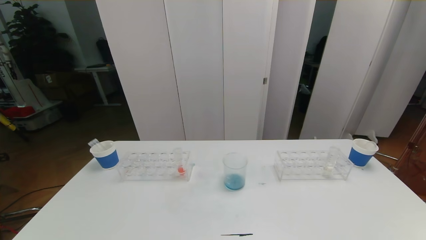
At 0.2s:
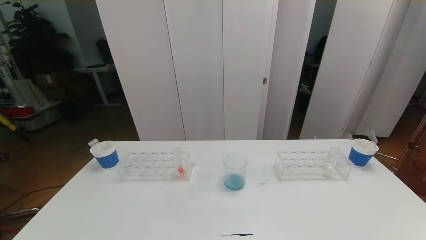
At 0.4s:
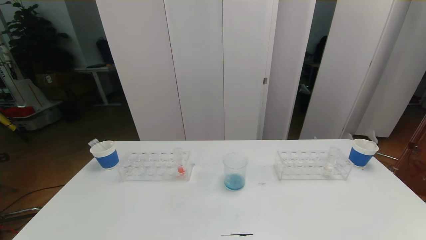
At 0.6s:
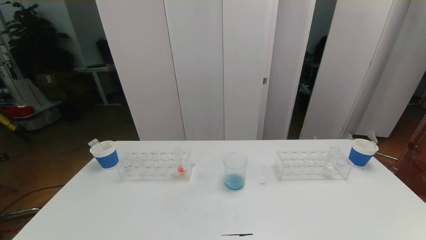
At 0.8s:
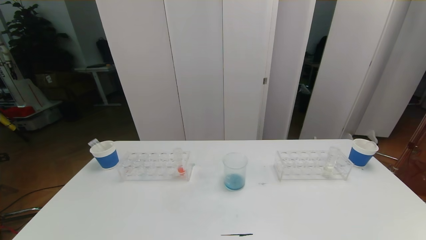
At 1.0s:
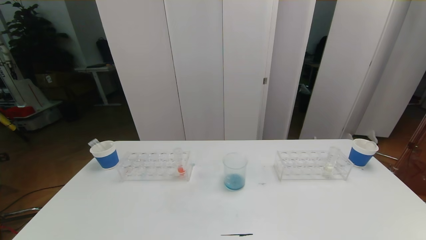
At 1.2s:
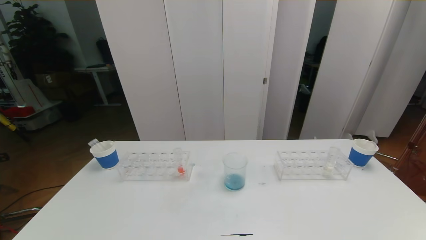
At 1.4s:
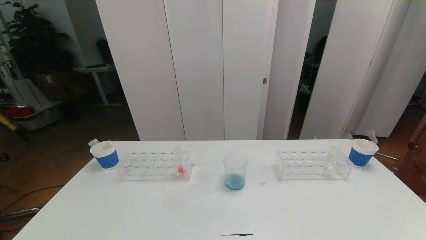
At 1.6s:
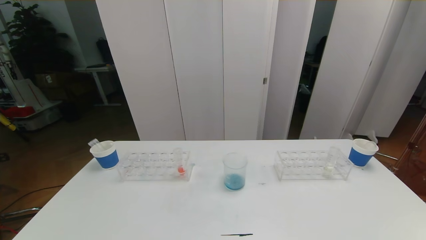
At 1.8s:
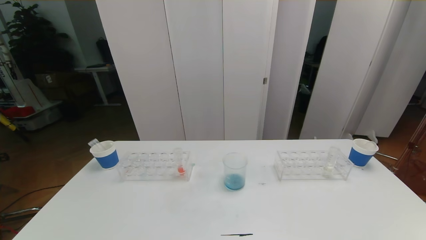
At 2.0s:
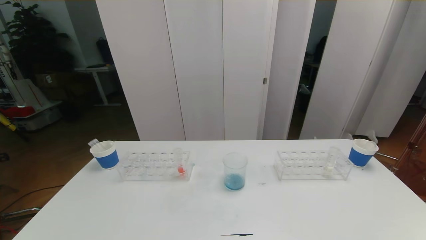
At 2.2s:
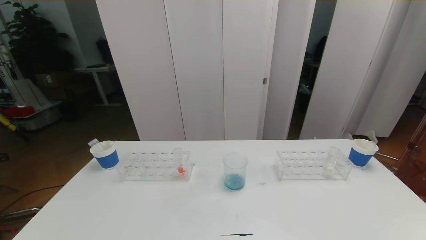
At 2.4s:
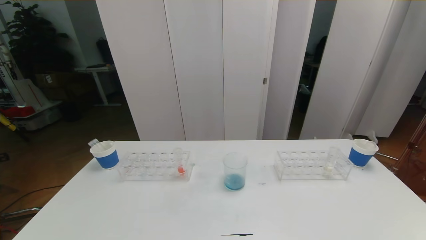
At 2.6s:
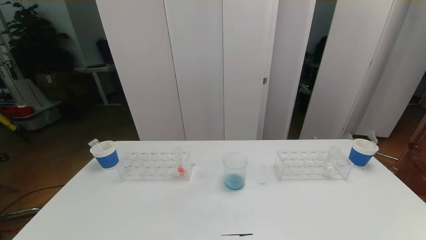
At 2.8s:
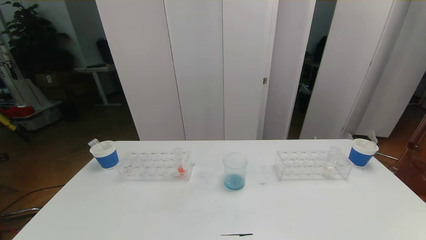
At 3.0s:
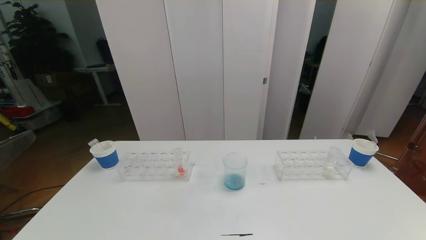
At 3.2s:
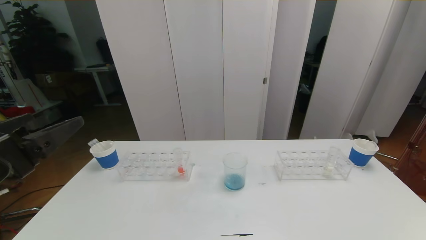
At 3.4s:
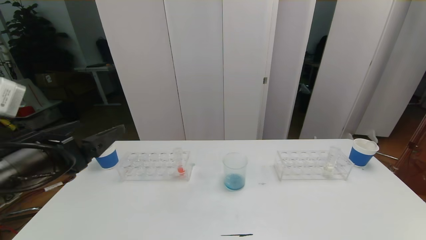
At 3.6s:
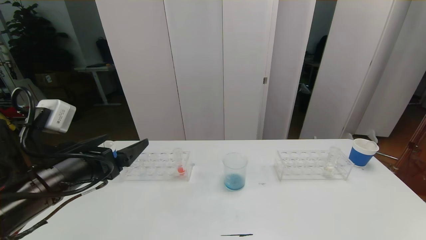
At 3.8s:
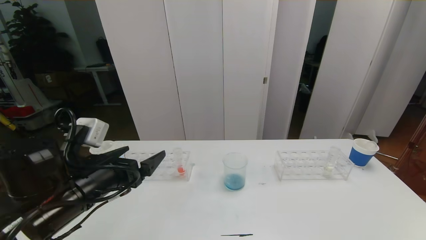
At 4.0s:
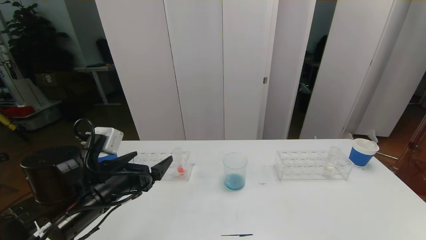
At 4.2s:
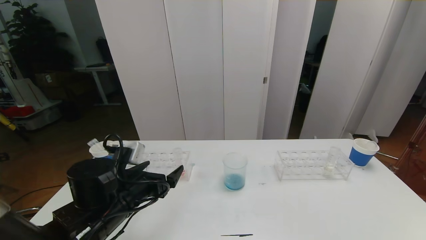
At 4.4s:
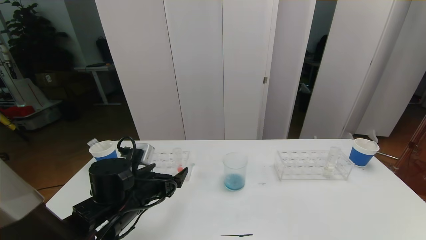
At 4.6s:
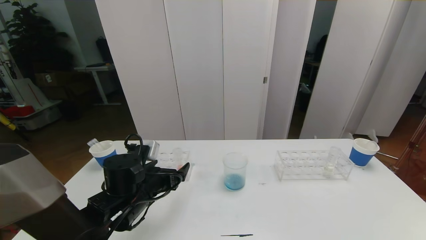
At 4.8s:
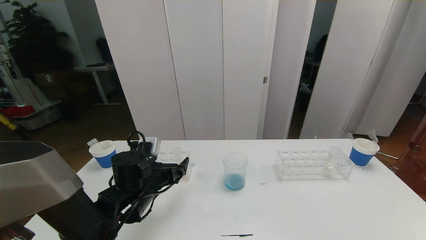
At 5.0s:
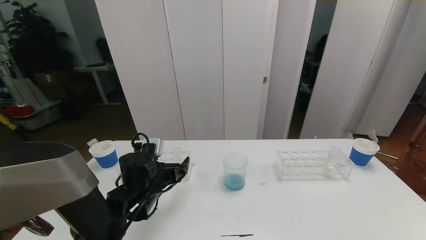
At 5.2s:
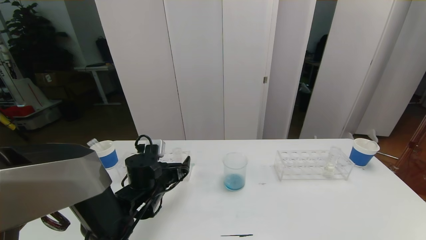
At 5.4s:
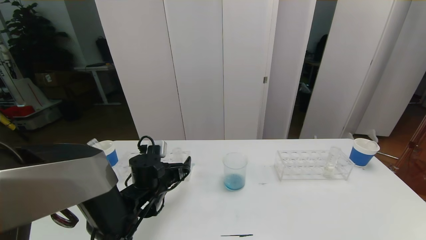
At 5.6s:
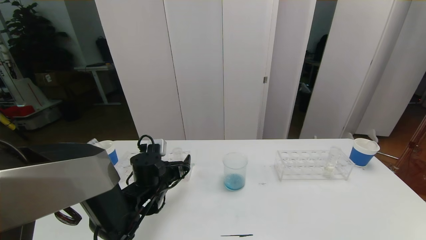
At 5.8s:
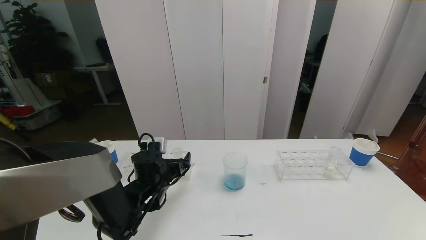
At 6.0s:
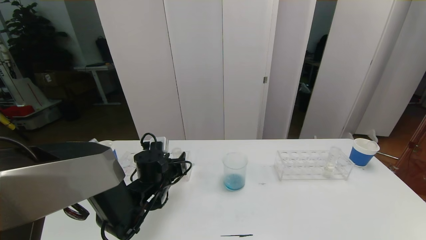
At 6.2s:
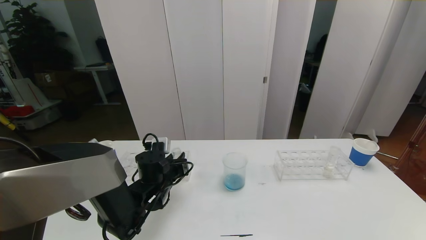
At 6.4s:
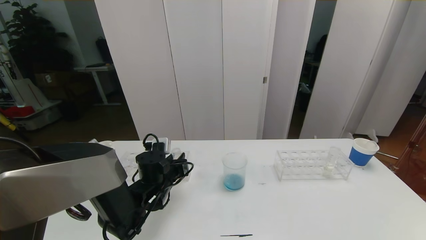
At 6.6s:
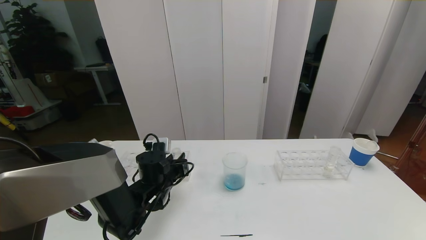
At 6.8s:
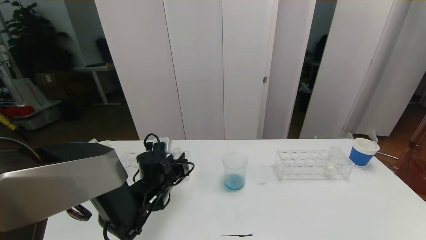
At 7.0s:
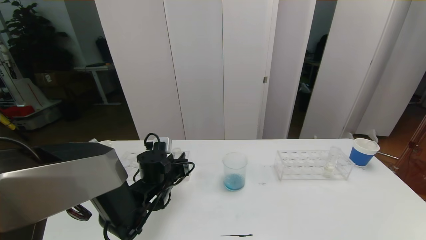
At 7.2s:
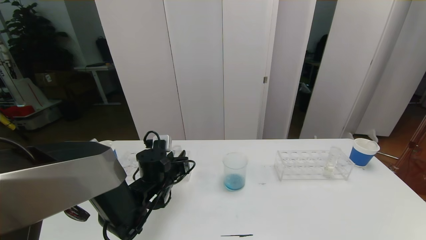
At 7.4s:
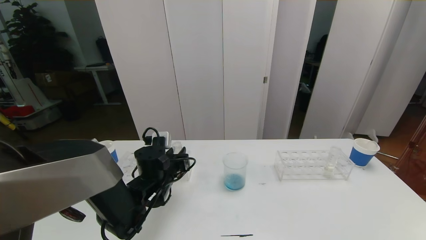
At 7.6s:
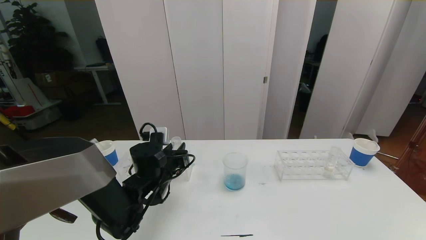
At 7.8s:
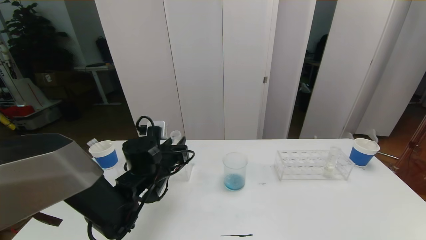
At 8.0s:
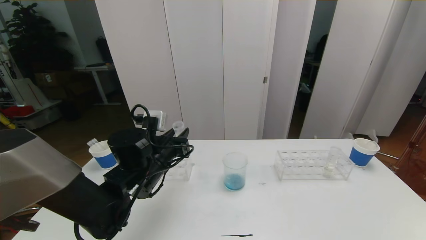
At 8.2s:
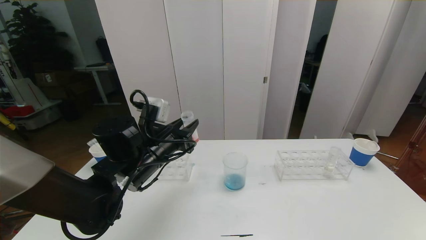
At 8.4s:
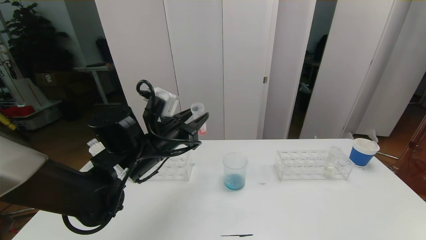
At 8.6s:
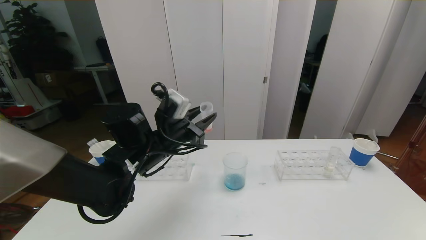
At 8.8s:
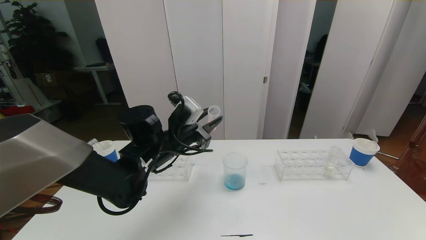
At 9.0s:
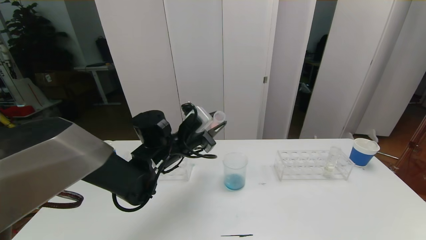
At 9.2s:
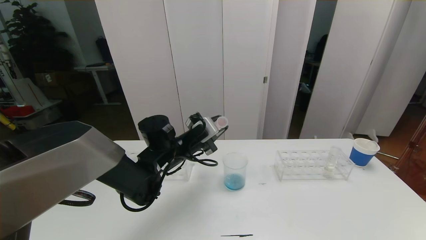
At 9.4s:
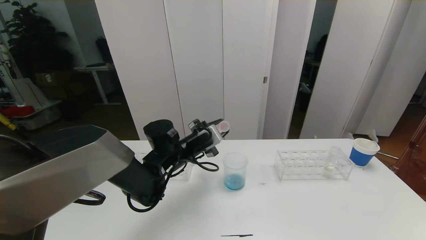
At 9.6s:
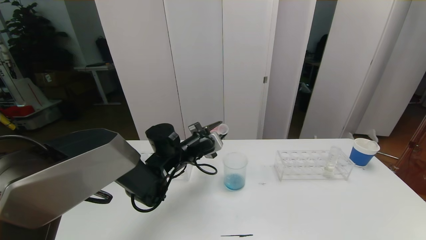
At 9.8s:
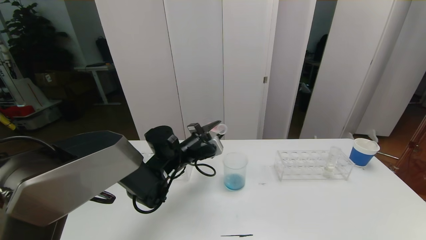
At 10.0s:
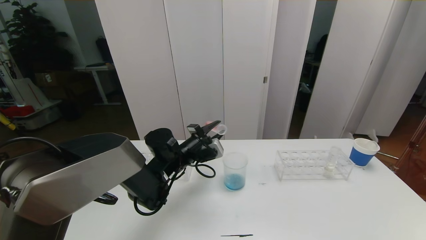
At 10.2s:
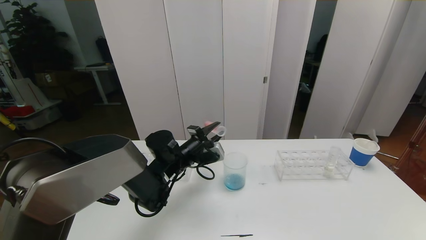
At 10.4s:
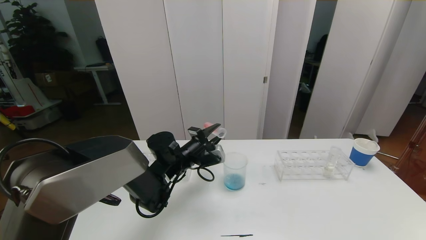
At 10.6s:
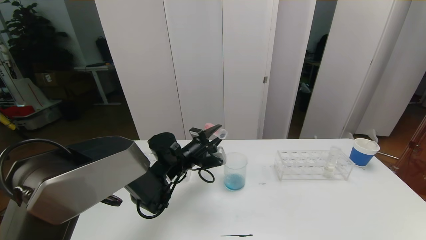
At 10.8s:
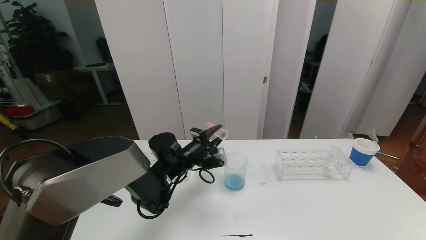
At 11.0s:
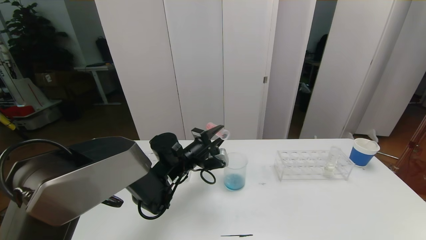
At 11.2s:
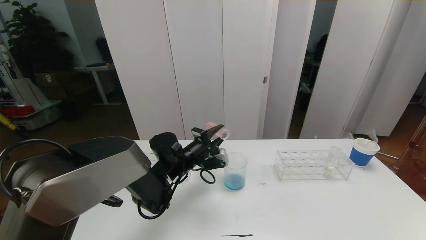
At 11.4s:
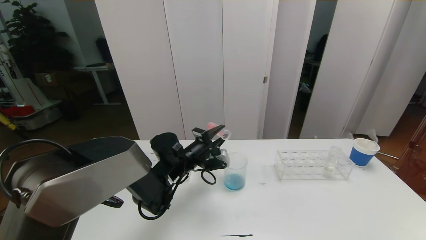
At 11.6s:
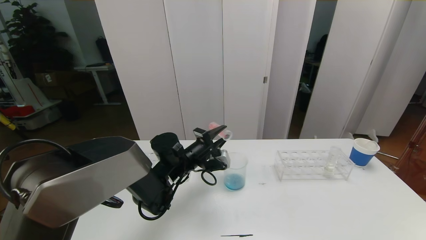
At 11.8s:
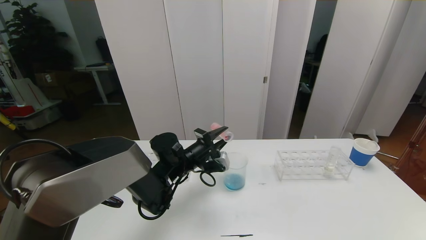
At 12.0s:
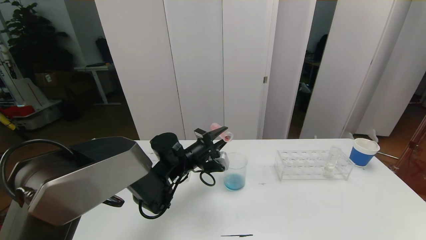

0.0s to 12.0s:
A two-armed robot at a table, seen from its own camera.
Task of the whole recording: pick up the test tube with red pigment the test tube with blue pigment and the test tube with white pigment by grippers and pour them into the beaker.
3.0s to 4.4s: The left gripper is displaced forward, downward and to the right by some 25 cm.
4.4s to 6.0s: The left gripper is displaced forward by roughly 10 cm, and closes up.
6.0s to 7.6s: The left gripper closes up.
7.6s to 9.0s: The left gripper is displaced upward by approximately 5 cm.
9.0s to 10.4s: The left gripper goes about 5 cm downward.
10.4s to 12.0s: The grippers make only small movements.

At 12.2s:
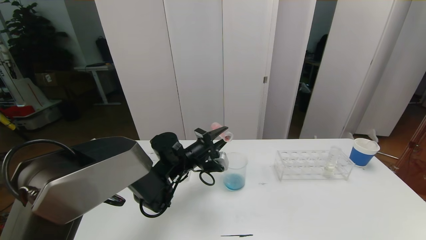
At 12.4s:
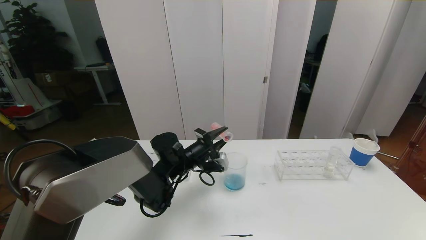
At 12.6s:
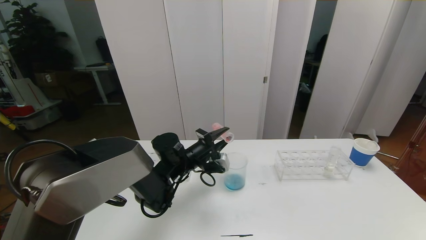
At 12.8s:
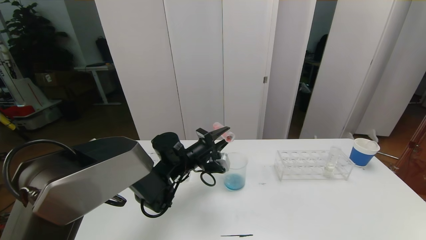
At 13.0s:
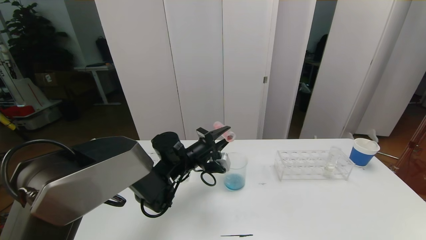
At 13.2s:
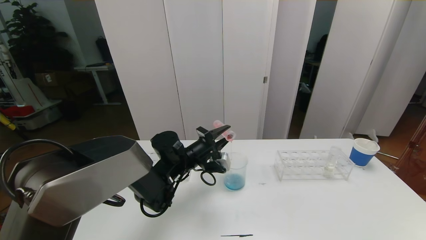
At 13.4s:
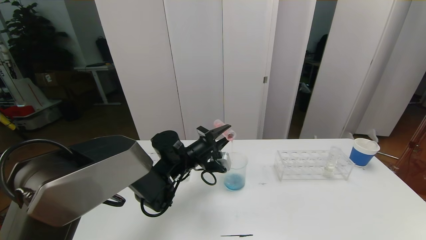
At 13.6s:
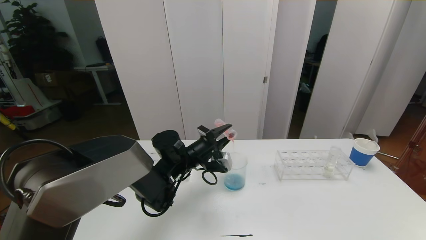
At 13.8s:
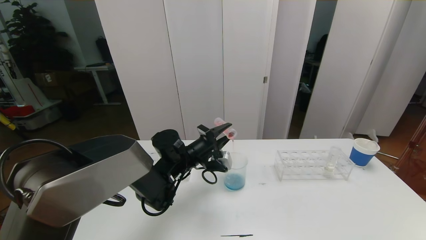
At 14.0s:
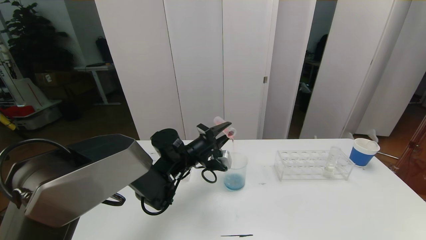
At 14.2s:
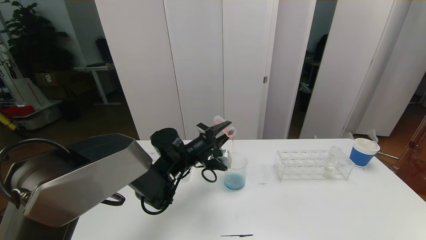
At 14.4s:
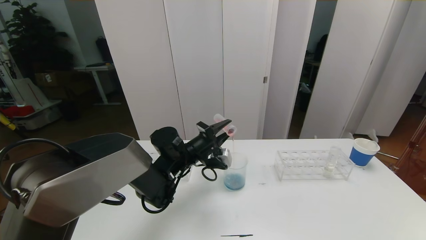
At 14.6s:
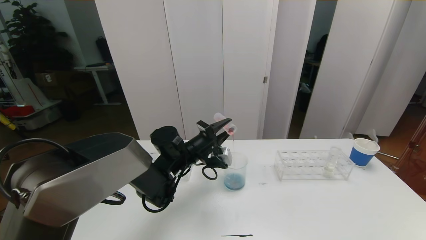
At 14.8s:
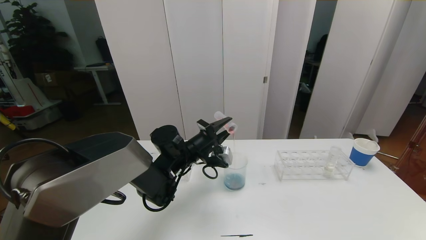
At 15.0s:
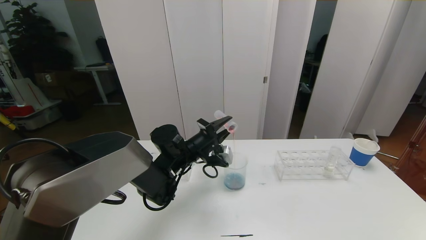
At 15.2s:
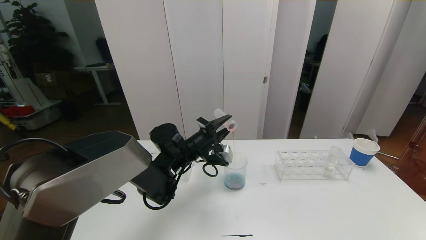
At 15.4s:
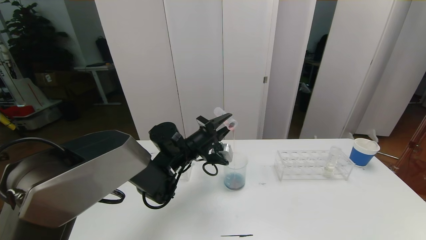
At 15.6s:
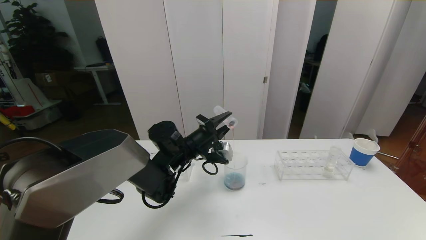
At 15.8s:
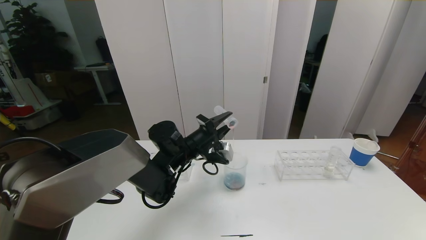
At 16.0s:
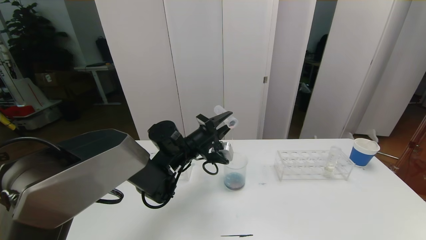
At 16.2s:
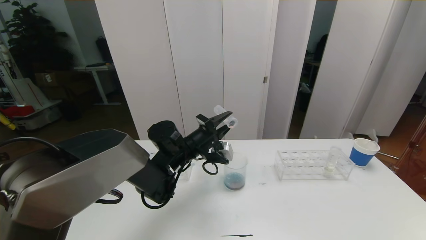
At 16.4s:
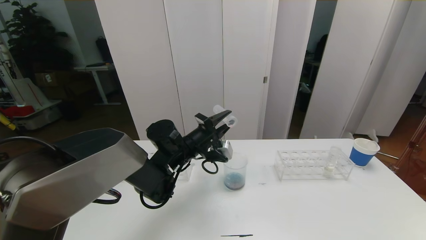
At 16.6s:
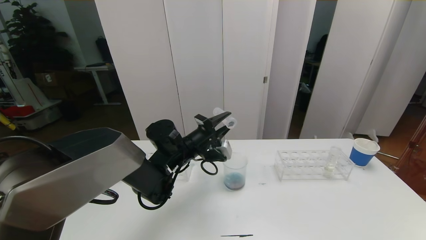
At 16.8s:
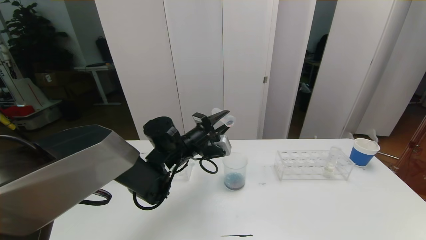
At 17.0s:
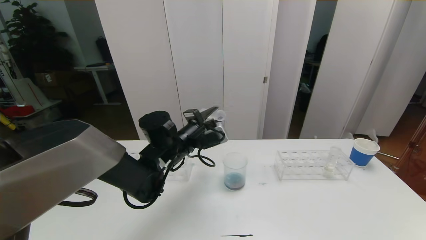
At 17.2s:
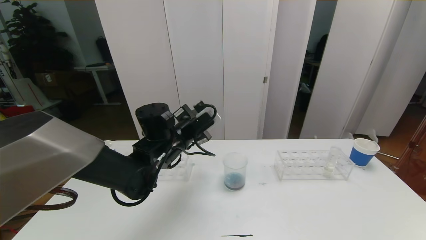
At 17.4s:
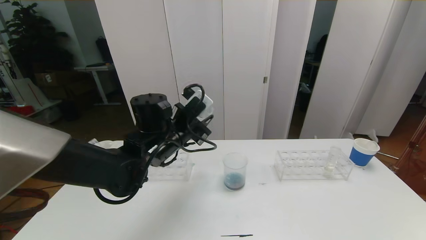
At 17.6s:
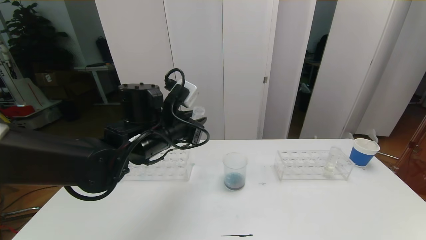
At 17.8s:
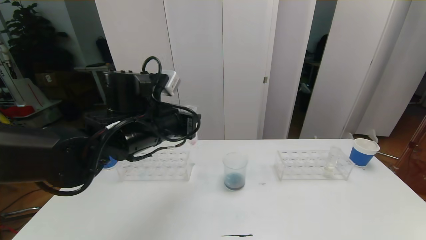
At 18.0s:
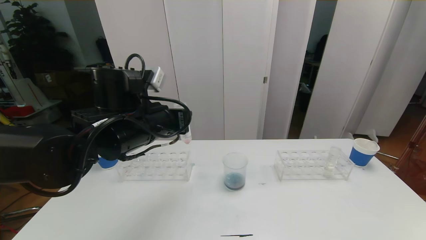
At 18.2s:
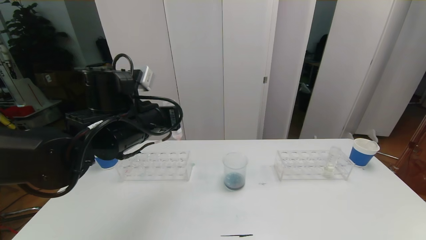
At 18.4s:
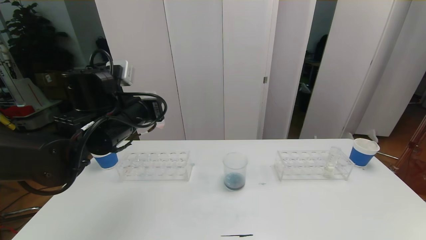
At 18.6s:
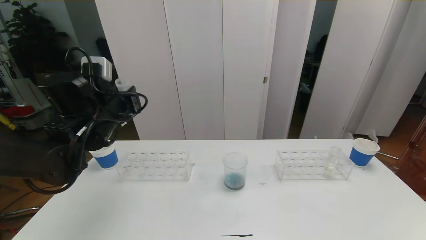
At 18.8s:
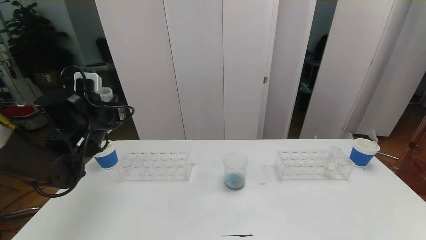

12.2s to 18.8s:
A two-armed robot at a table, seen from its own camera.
Task of the whole recording: pick up the test tube with red pigment the test tube with blue pigment and the test tube with white pigment by grippers and pour them into the beaker.
12.2s to 15.4s: The grippers stay close to where they were, moving slightly.
15.4s to 17.2s: The left gripper heads upward, covering roughly 5 cm.
17.2s to 18.8s: The left gripper travels to the left by about 20 cm.
